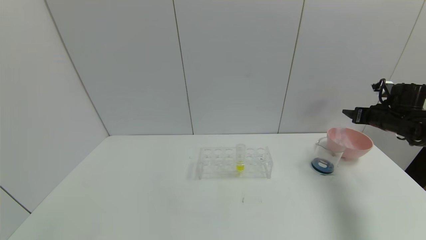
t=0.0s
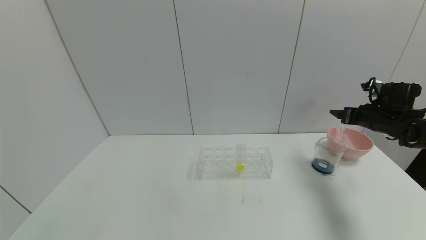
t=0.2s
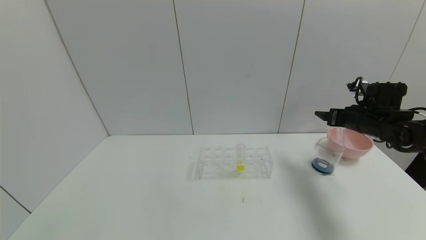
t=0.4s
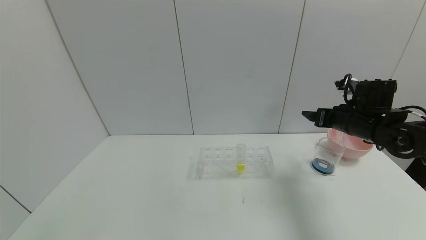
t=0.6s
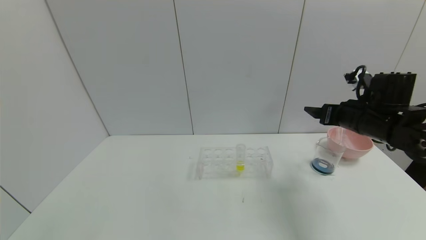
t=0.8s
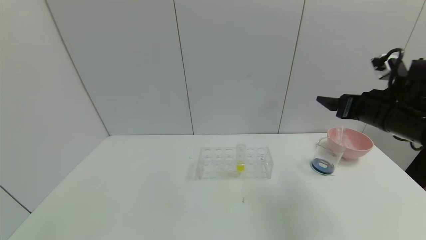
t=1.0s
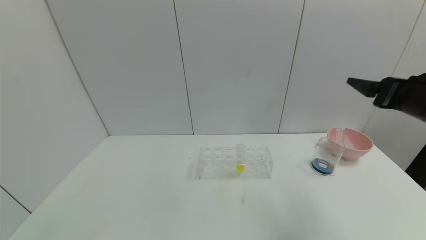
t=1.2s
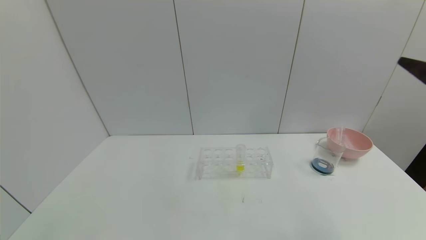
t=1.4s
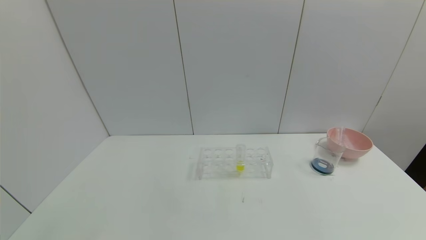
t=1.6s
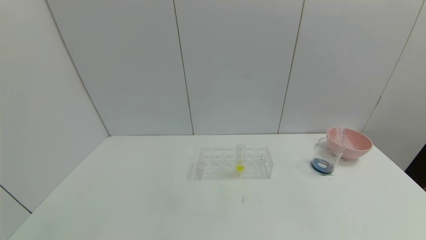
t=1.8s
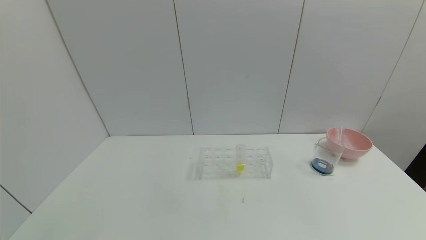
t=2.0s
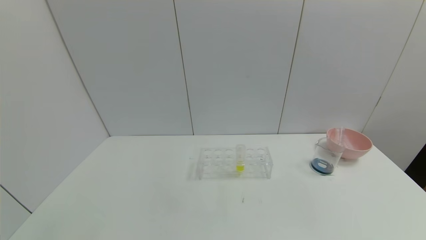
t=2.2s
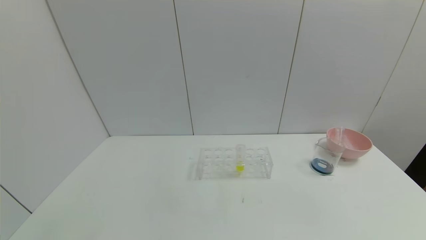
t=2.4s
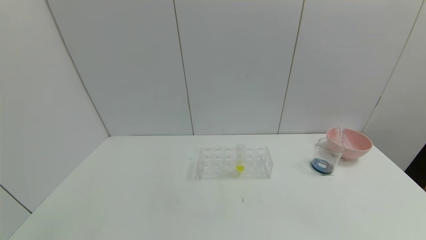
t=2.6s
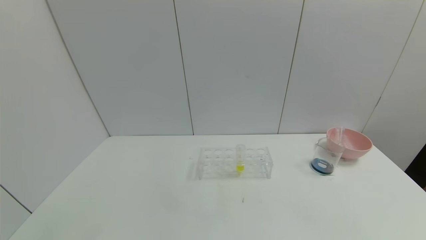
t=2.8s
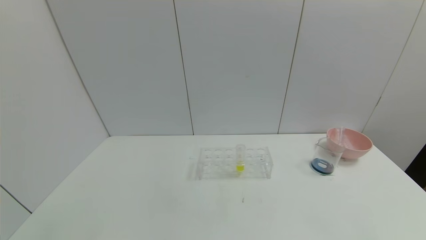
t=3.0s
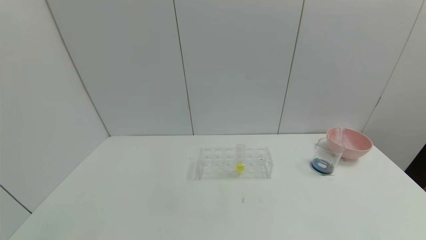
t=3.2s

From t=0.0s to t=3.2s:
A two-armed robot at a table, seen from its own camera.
Task of the whole recording: pick up the test tube with red pigment and the test tube with blue pigment by grippers and pour them into the container.
From t=0.0s to t=1.6s: The right gripper travels backward and upward by about 35 cm.
